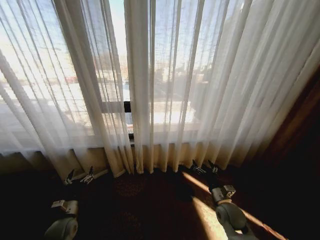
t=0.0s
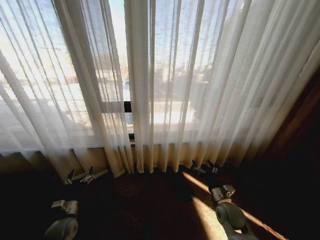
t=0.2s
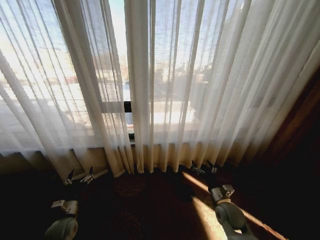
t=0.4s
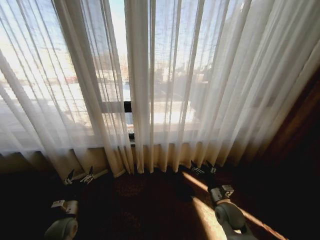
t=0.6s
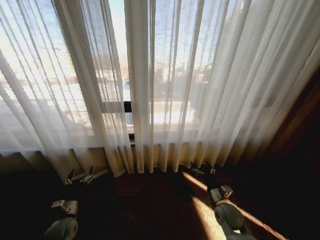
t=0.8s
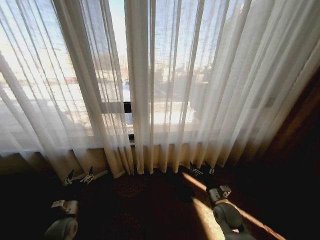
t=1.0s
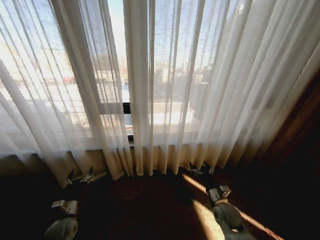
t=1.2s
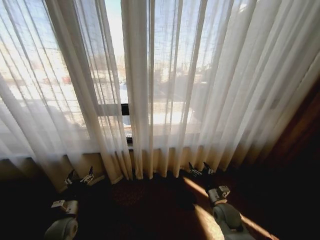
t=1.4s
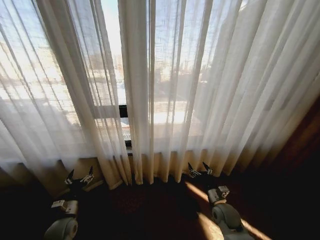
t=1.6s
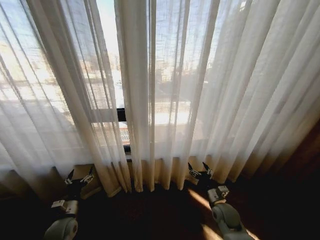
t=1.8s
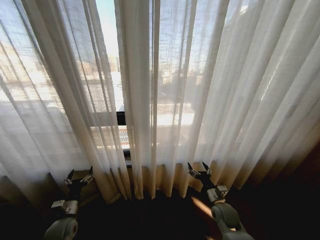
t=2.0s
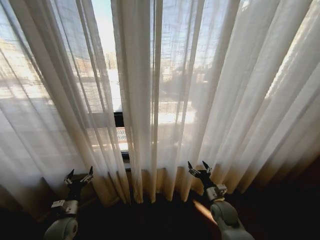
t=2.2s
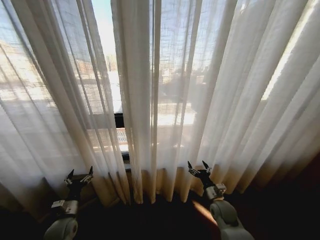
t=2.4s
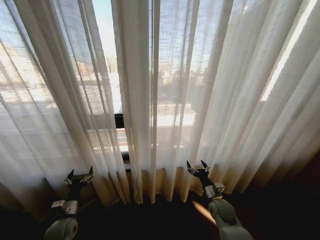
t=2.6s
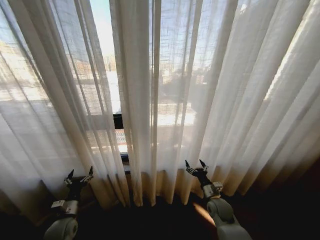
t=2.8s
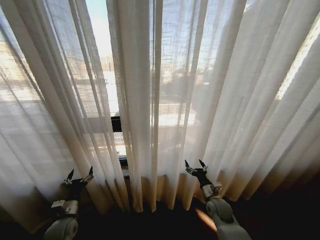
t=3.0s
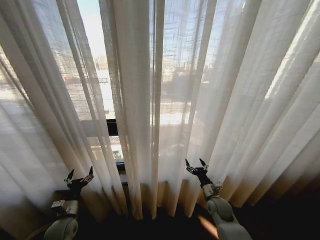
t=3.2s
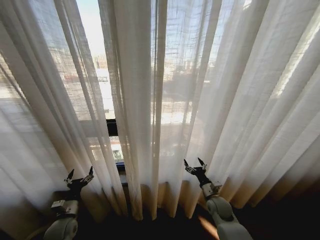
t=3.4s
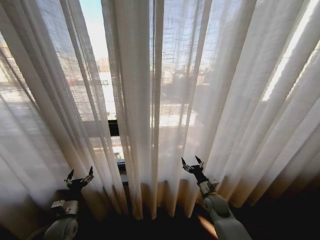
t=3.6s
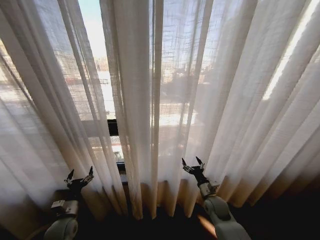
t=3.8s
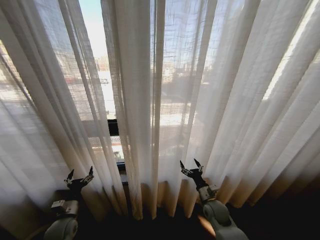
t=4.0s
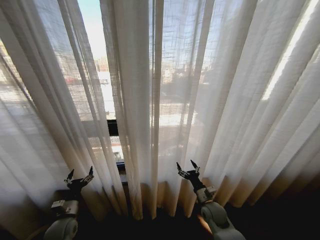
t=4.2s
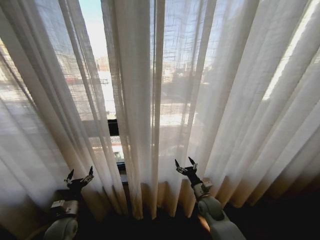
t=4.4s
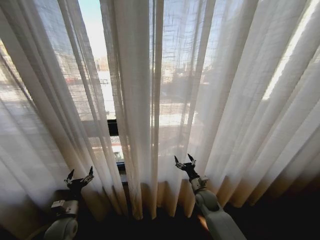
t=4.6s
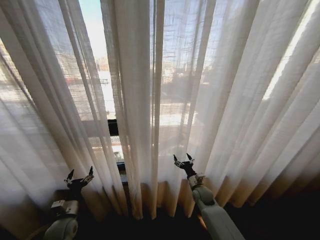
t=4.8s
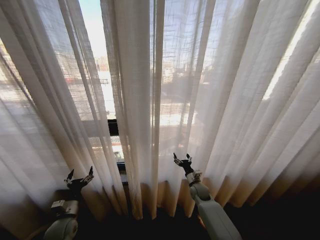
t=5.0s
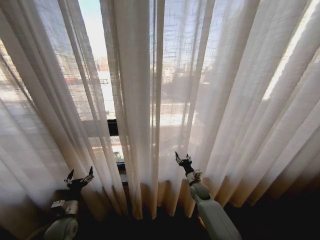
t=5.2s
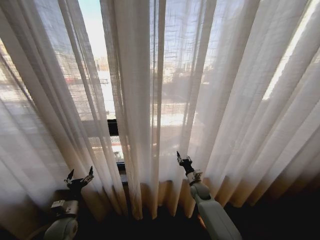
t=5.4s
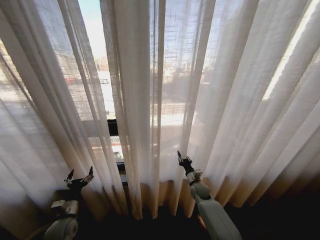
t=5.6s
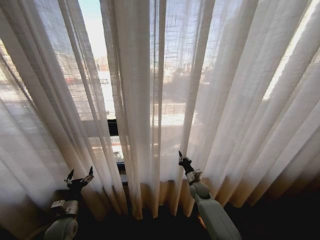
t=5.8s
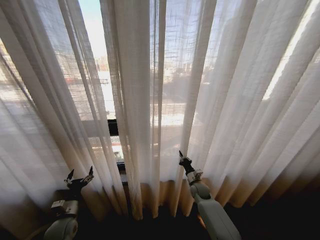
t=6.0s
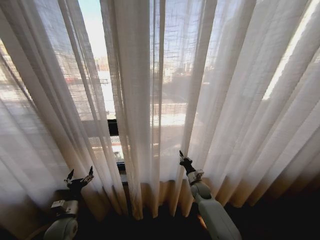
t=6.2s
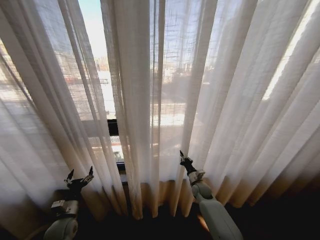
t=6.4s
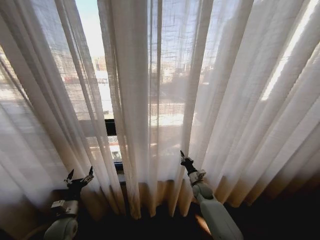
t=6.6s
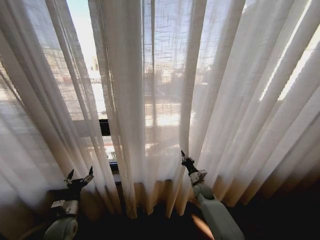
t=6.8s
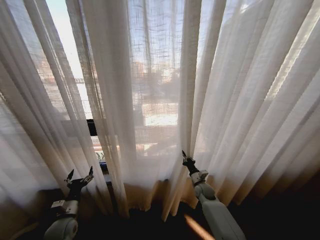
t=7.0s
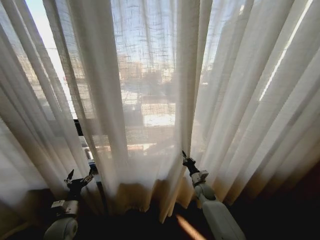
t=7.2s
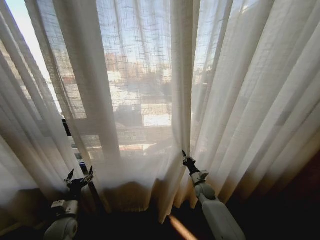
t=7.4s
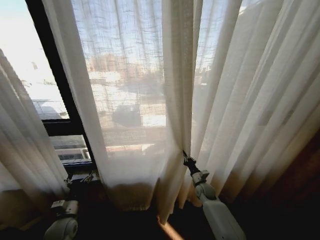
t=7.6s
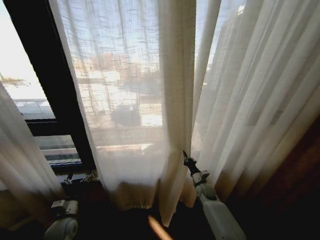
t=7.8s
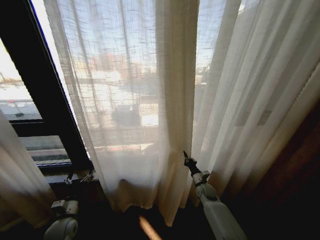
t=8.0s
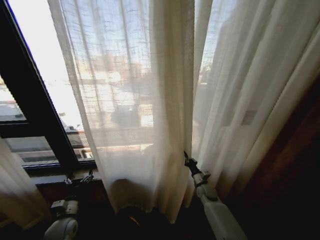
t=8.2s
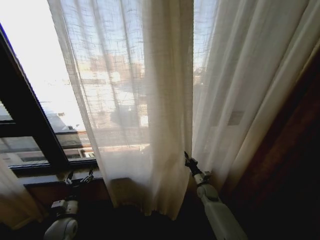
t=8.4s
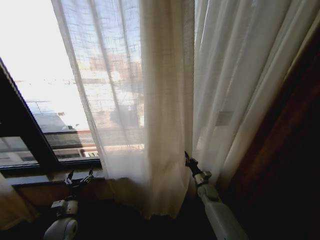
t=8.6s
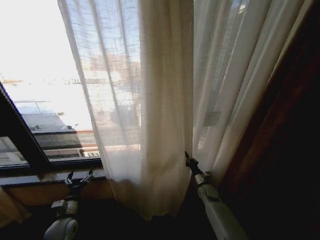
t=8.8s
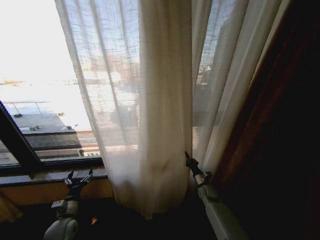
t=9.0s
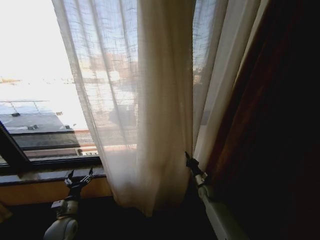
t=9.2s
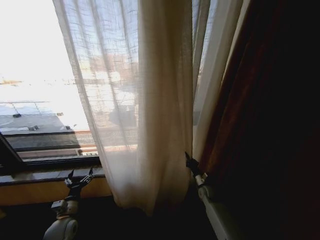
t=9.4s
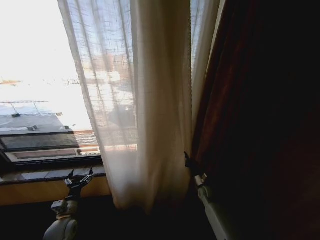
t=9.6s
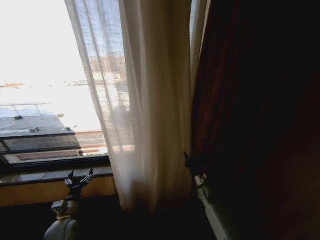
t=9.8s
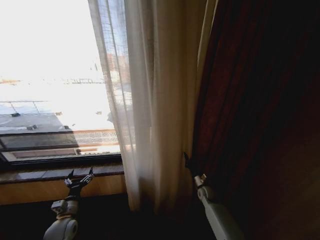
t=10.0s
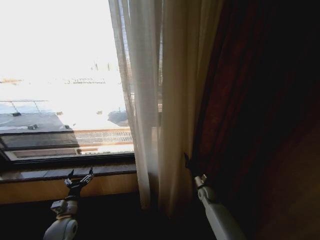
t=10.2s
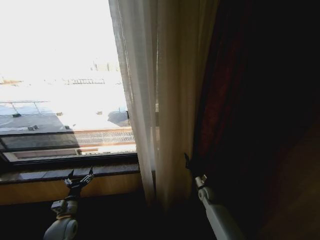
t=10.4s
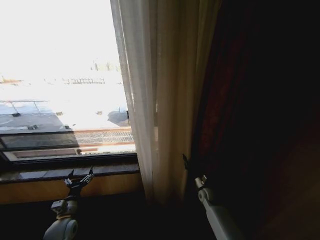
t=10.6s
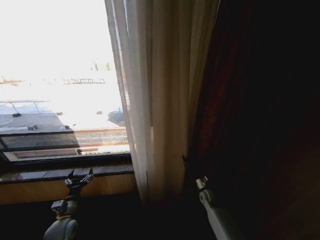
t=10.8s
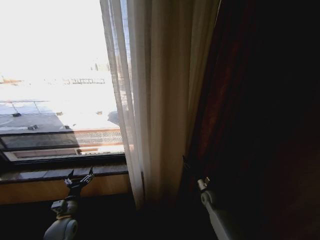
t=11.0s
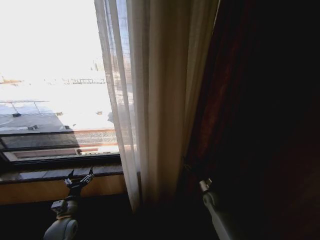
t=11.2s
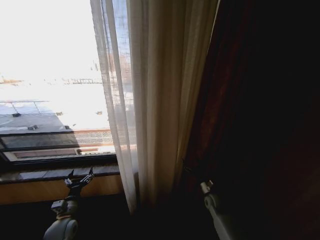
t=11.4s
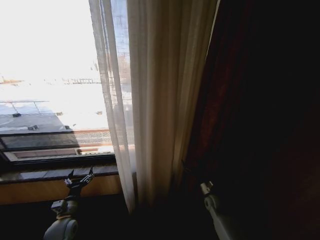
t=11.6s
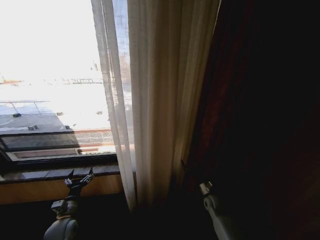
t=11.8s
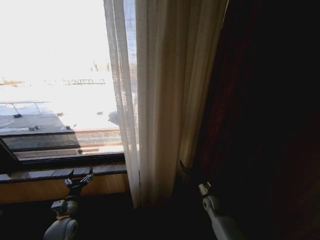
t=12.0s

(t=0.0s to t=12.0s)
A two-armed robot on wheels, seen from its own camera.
Task of the whole recording: Open the curtains by pulling them apart, changing their state from closed to fully open.
t=4.4s - t=6.0s: The right gripper heads forward, covering about 10 cm, and closes.
t=10.4s - t=12.0s: The right gripper is displaced backward by about 5 cm, and opens up.

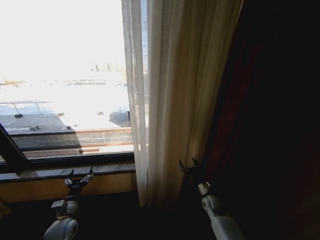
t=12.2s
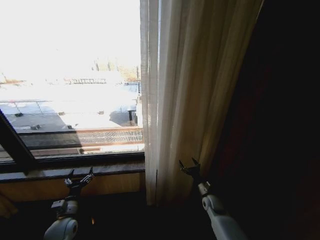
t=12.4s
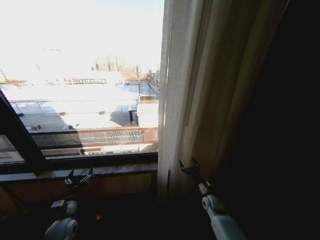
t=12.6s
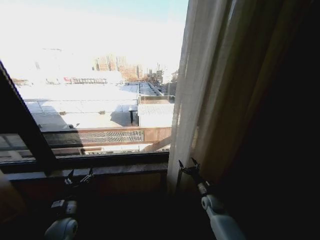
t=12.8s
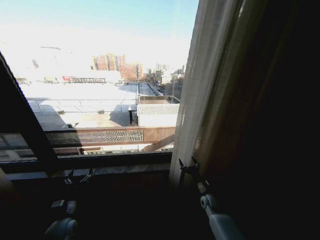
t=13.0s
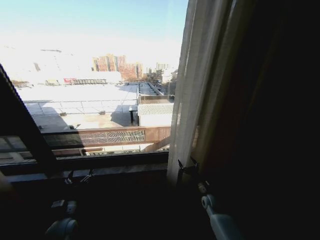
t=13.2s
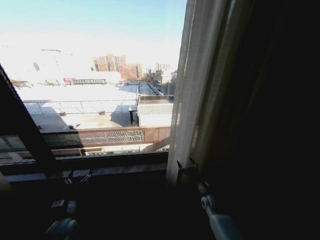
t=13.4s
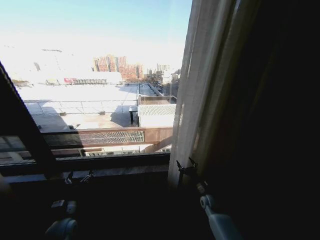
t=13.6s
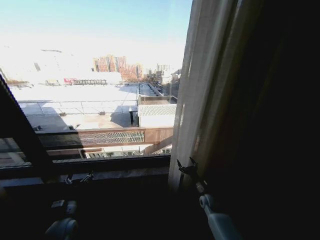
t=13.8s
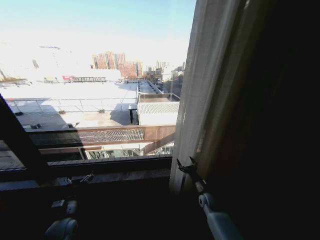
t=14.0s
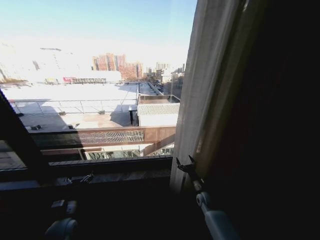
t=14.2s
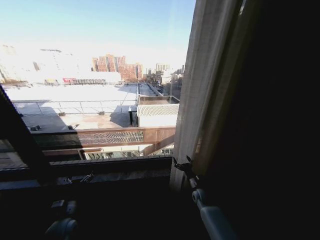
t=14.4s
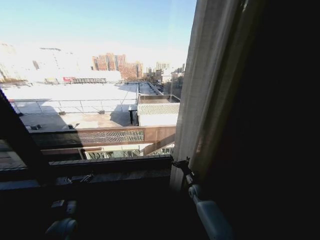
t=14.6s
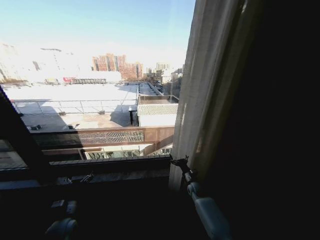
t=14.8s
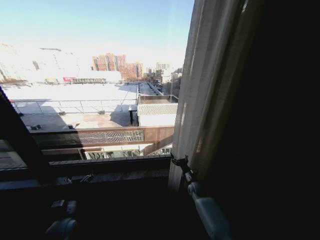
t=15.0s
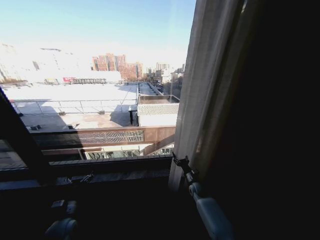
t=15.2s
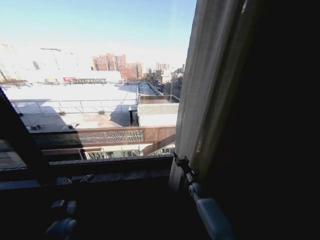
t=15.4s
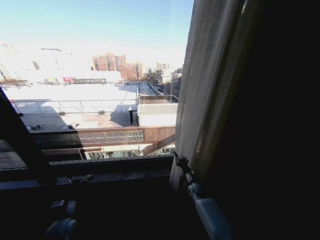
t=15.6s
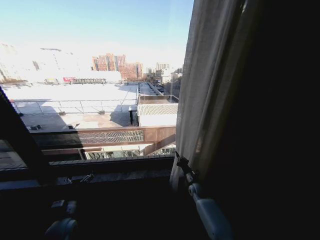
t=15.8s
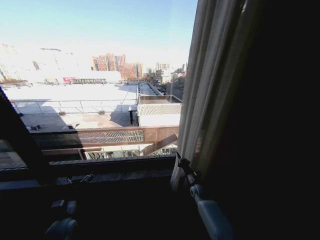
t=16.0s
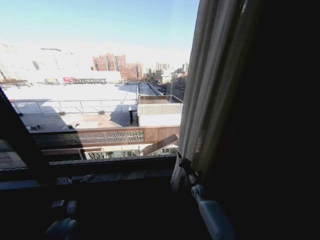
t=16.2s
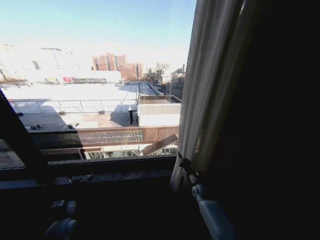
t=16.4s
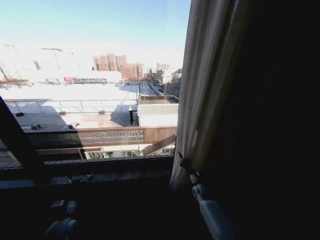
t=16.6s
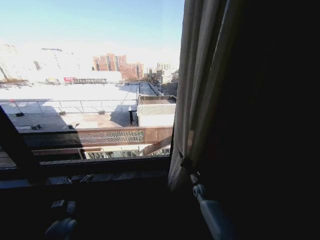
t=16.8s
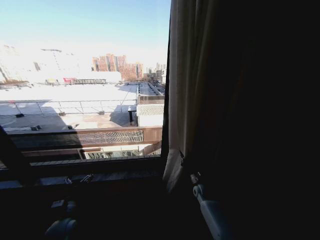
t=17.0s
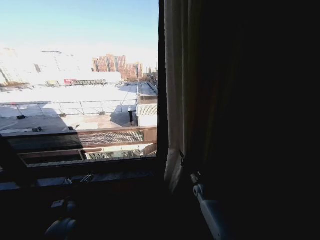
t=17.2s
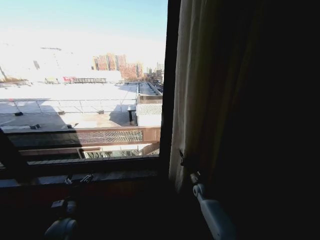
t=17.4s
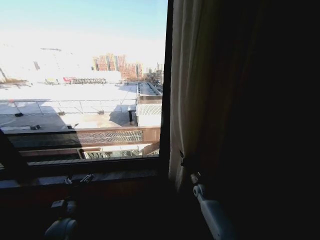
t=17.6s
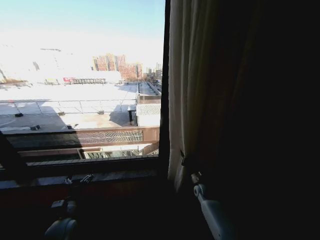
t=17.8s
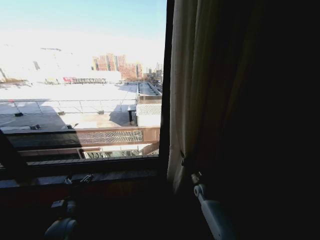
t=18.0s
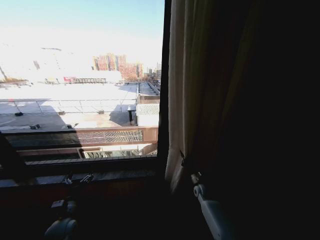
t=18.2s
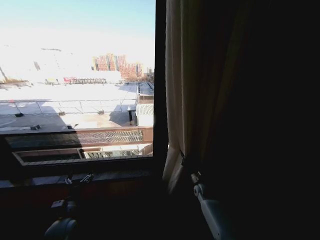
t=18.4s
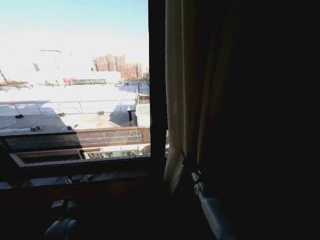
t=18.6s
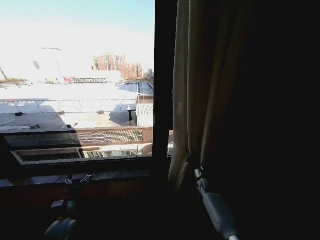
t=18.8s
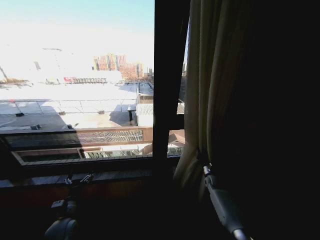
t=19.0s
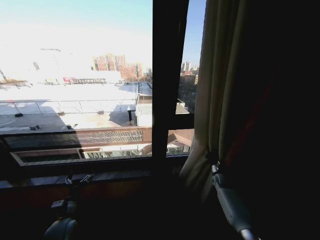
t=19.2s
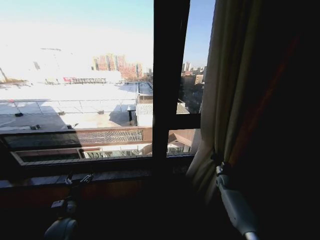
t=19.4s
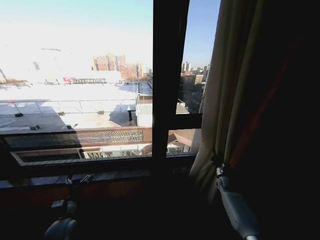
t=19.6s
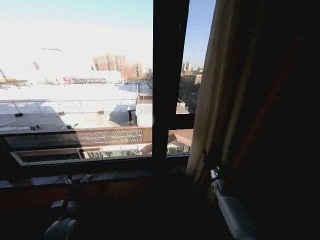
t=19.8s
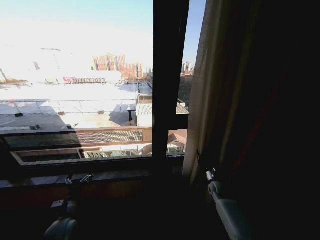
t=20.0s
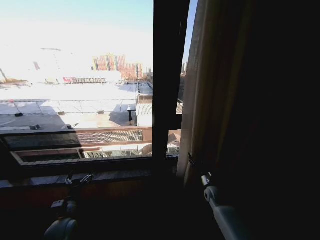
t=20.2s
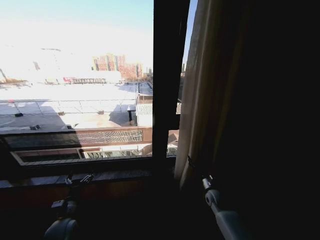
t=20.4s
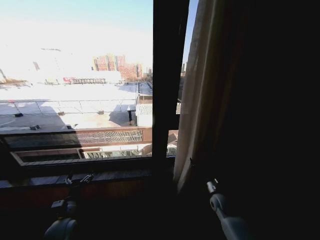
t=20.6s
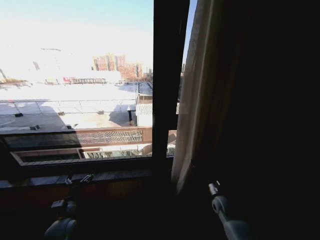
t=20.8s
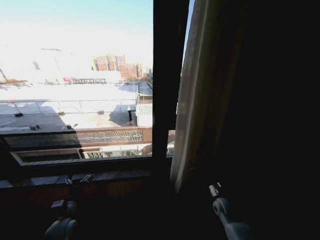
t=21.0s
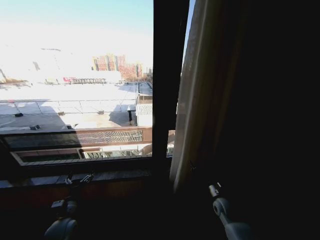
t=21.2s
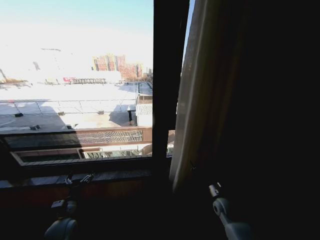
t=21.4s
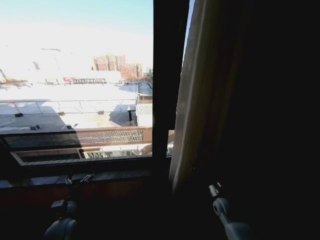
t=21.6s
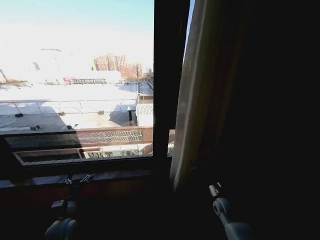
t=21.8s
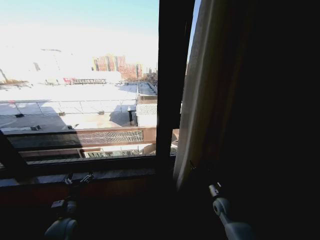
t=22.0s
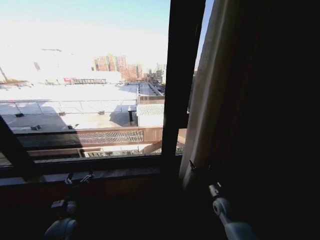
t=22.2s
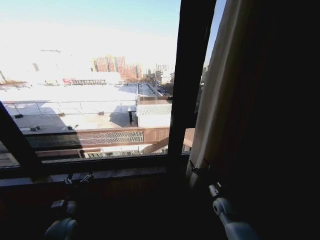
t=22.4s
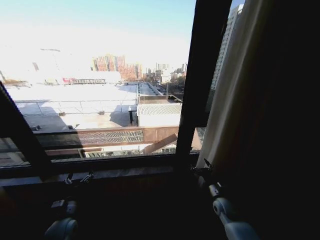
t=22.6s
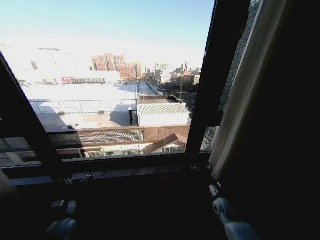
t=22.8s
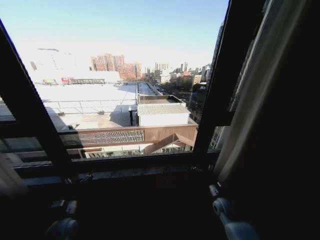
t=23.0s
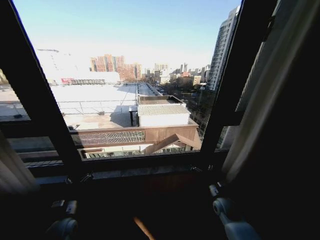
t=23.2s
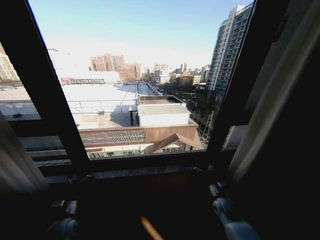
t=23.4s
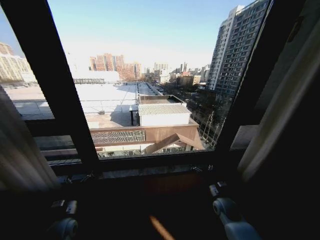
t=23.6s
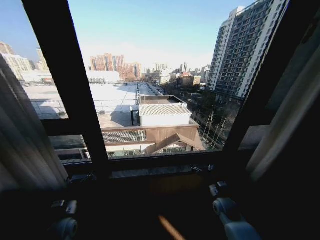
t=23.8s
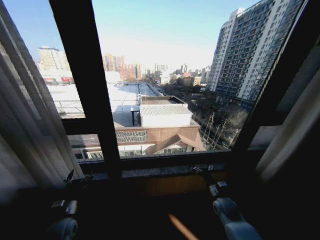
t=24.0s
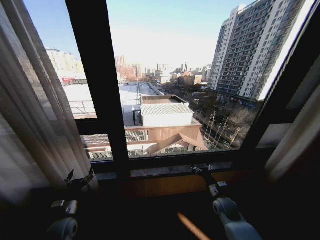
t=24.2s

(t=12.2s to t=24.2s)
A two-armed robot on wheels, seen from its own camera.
Task of the whole recording: Open the curtains by pulling them apart, changing their state from closed to fully open.
t=13.8s - t=15.2s: The right gripper heads forward, covering about 5 cm.
t=15.2s - t=16.6s: The right gripper closes up.
t=16.6s - t=18.2s: The two grippers keep their place.
t=18.2s - t=19.8s: The right gripper shifts approximately 10 cm to the right.
t=19.8s - t=21.2s: The right gripper heads backward and to the left, covering some 10 cm, and opens.
t=21.2s - t=22.6s: The two grippers keep their place.
